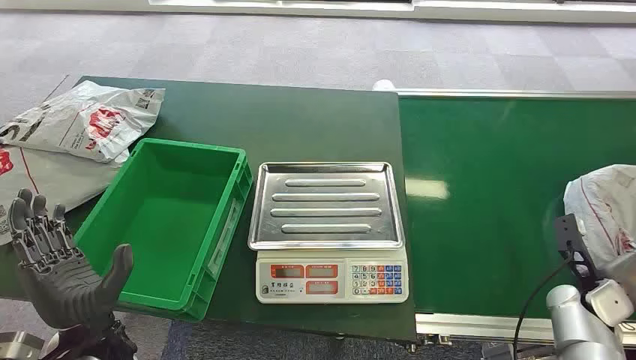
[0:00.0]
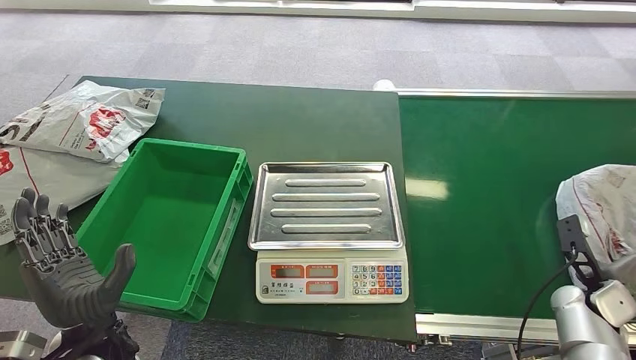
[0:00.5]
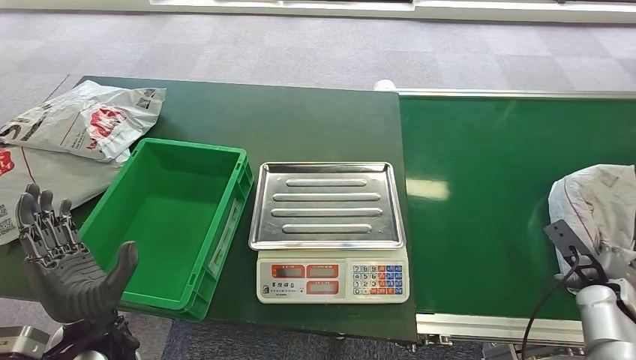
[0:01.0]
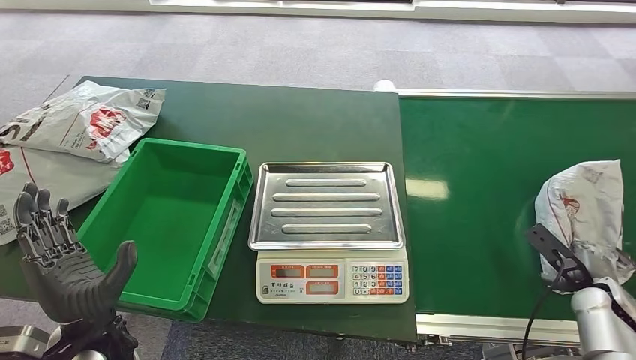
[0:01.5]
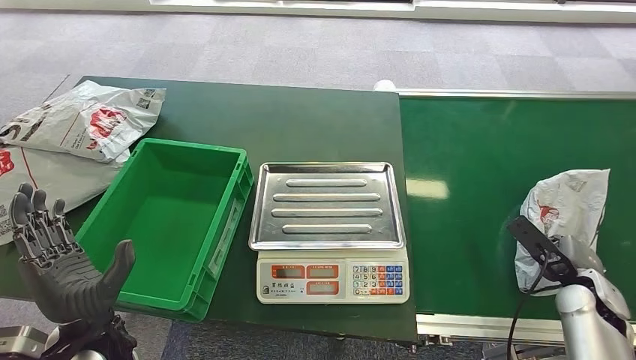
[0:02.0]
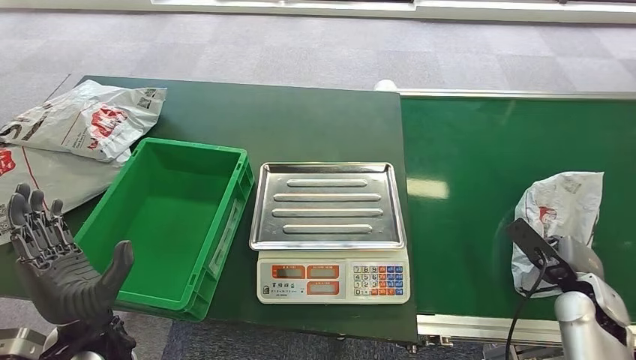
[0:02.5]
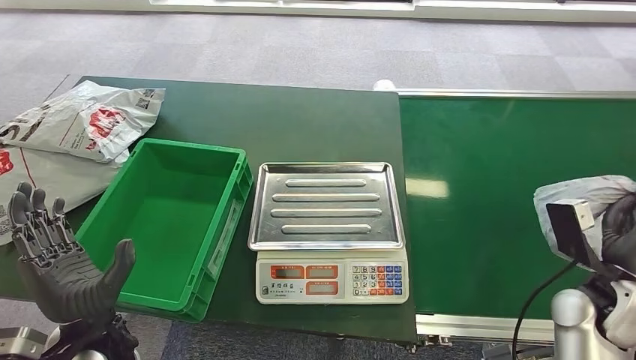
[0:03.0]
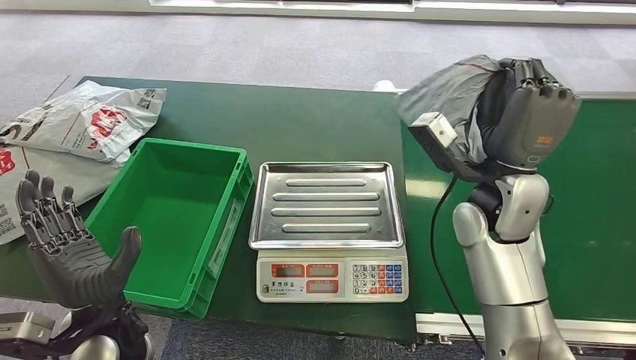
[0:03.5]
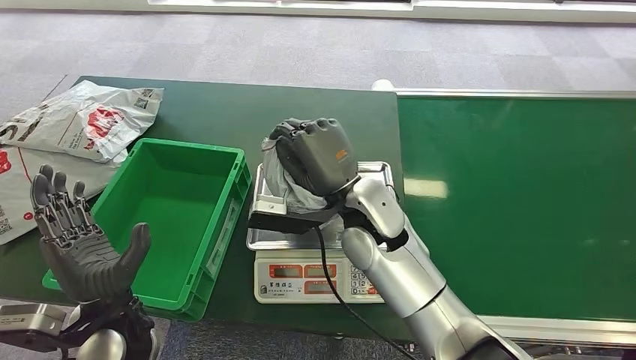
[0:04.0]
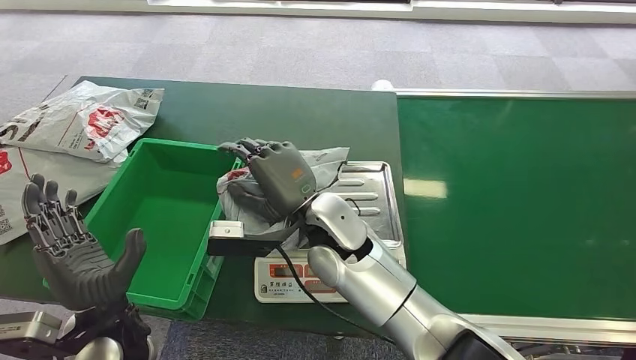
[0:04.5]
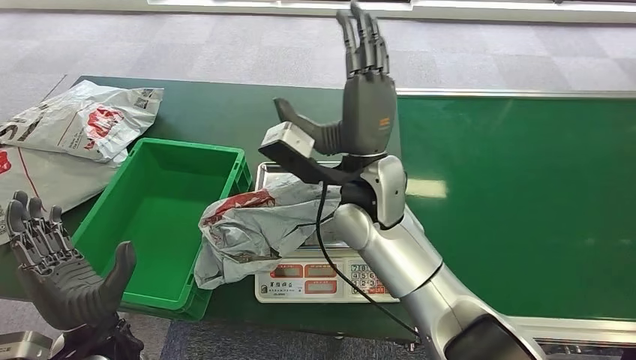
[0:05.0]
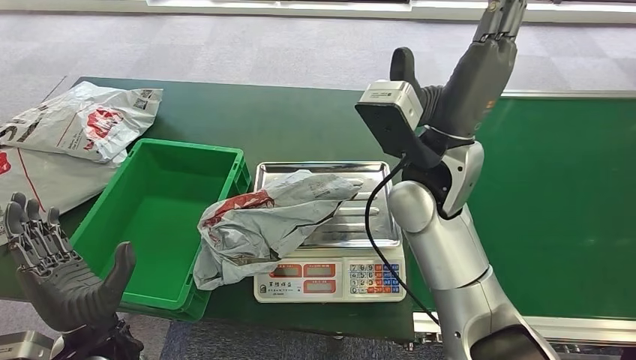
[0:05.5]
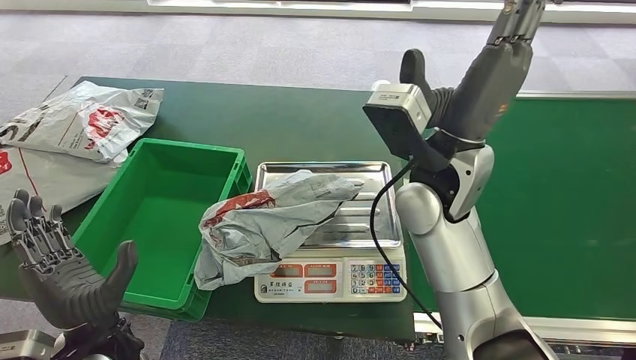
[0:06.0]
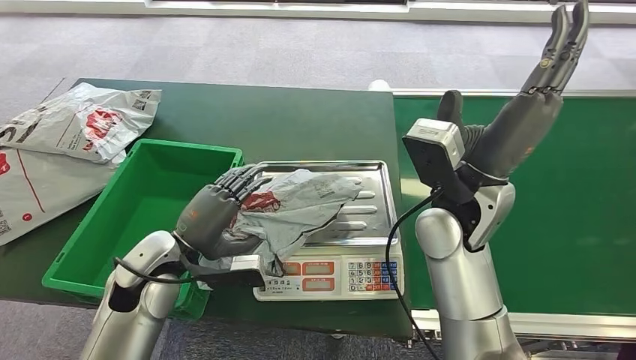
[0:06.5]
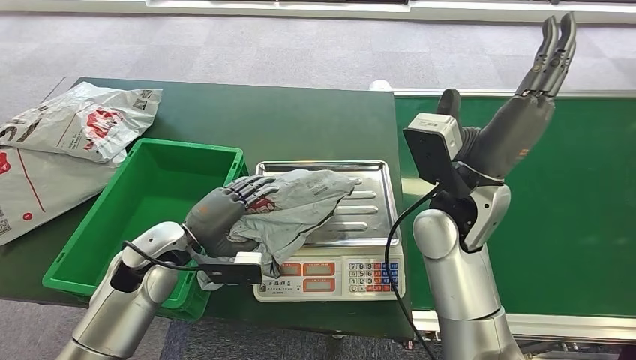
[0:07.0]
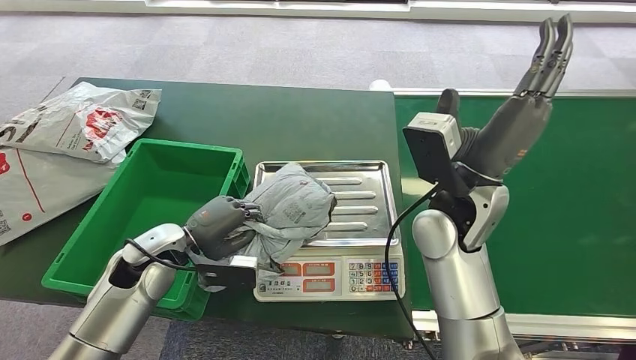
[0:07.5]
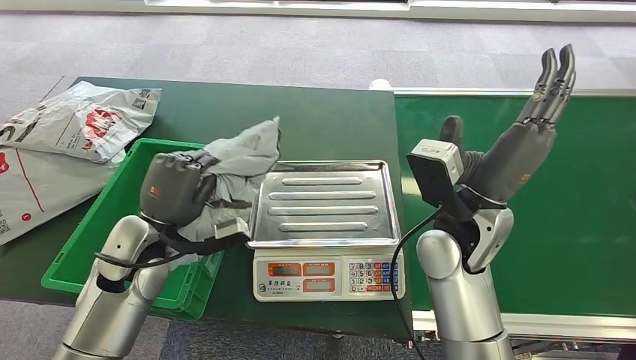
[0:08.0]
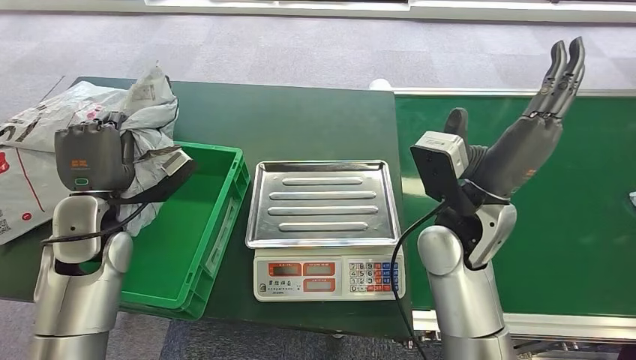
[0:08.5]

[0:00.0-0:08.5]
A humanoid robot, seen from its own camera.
Step, 0:00.0 to 0:03.5: Pick up the package from the conveyor belt.
Step, 0:04.0 to 0:05.0: Place the package onto the inbound machine.
Step, 0:05.5 to 0:08.0: Pick up the package from the inbound machine.
